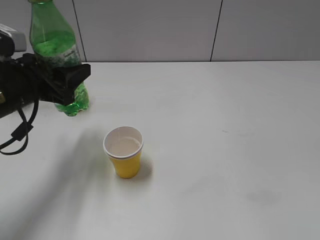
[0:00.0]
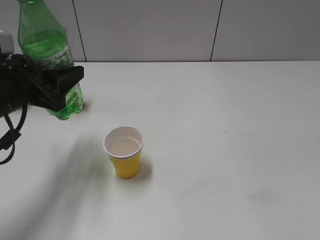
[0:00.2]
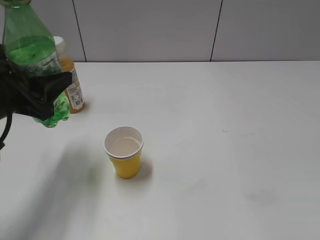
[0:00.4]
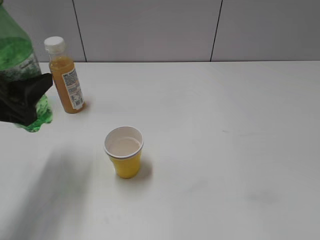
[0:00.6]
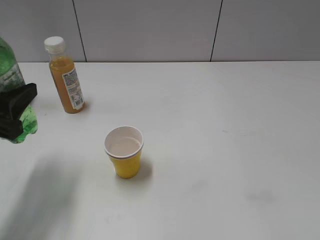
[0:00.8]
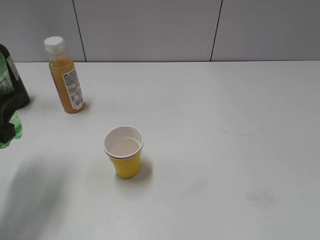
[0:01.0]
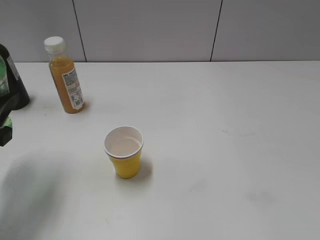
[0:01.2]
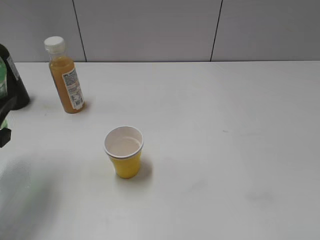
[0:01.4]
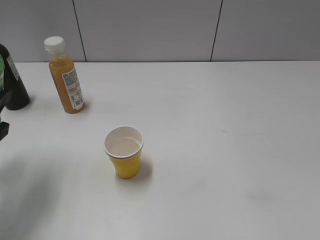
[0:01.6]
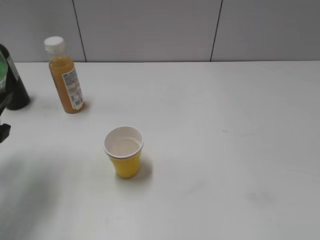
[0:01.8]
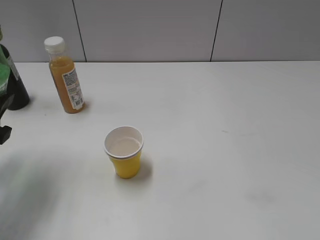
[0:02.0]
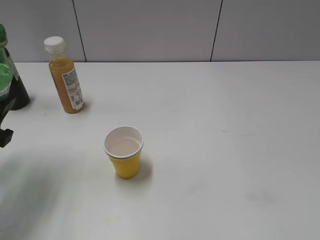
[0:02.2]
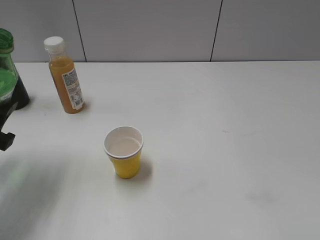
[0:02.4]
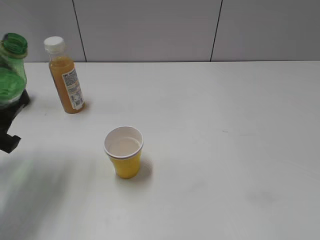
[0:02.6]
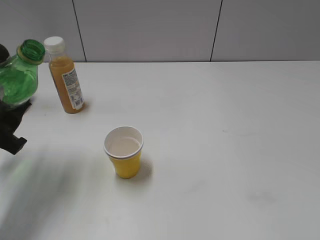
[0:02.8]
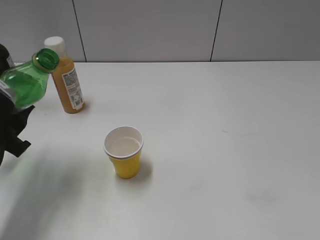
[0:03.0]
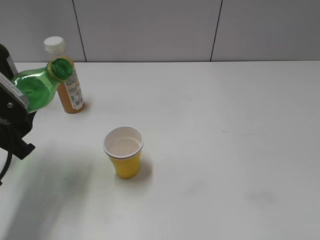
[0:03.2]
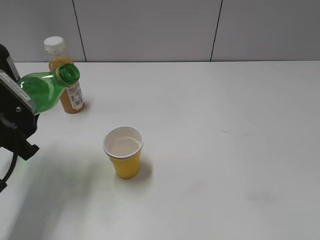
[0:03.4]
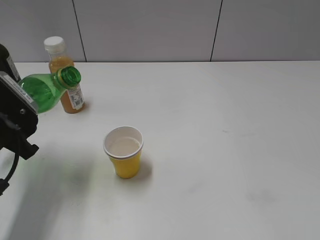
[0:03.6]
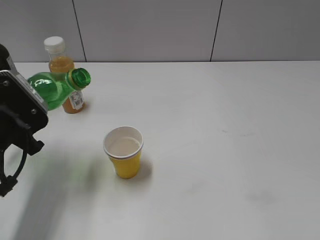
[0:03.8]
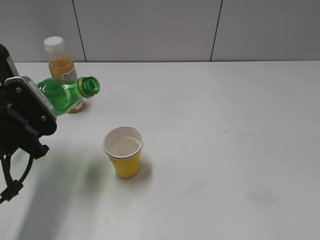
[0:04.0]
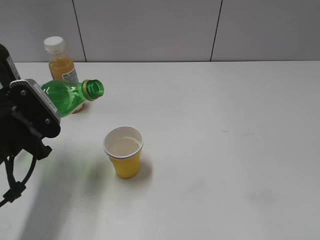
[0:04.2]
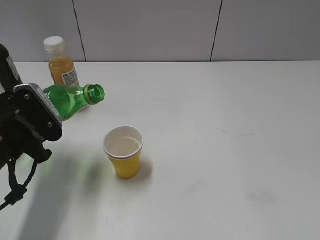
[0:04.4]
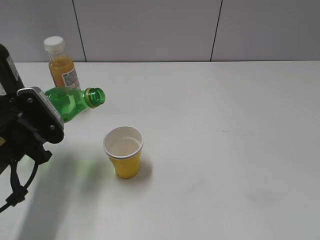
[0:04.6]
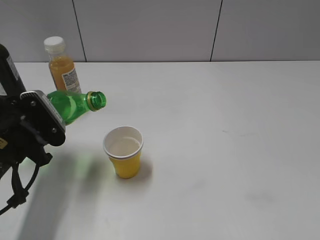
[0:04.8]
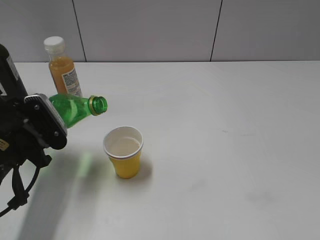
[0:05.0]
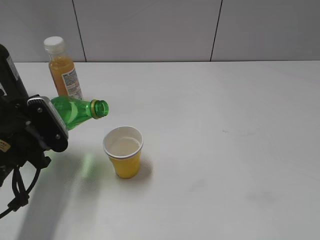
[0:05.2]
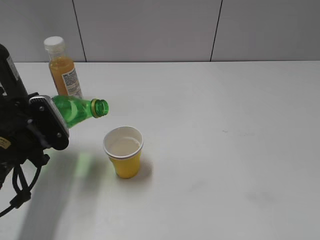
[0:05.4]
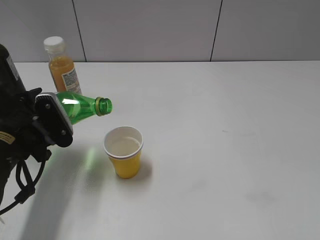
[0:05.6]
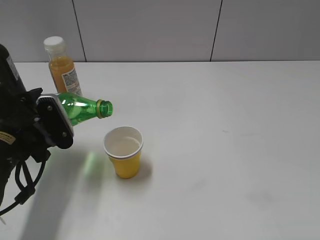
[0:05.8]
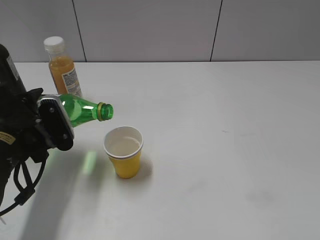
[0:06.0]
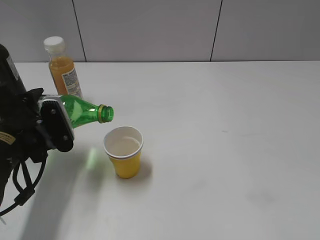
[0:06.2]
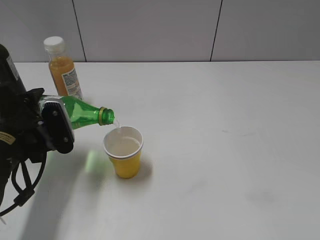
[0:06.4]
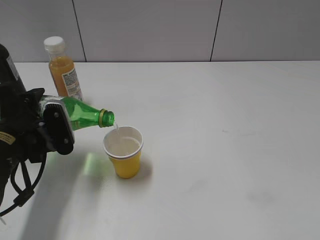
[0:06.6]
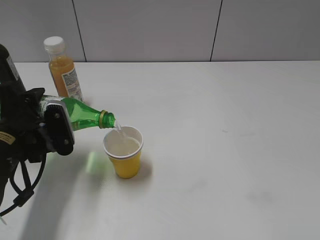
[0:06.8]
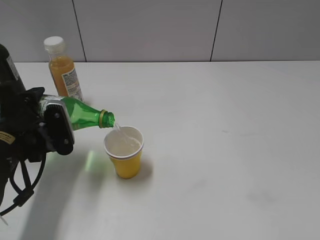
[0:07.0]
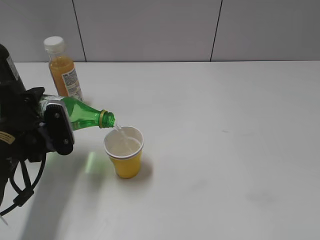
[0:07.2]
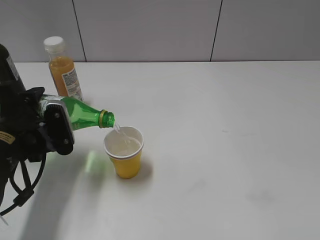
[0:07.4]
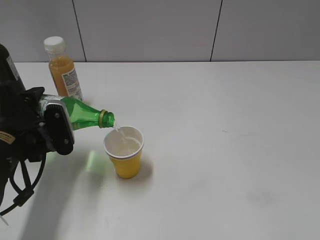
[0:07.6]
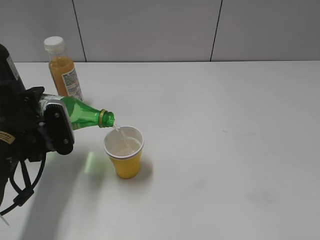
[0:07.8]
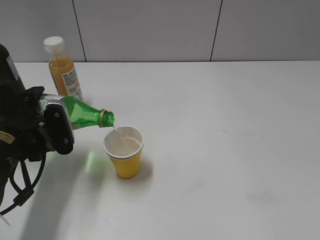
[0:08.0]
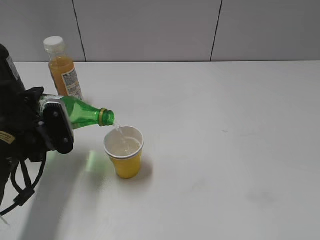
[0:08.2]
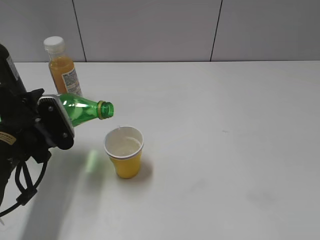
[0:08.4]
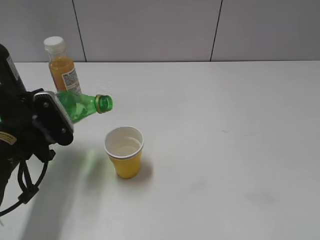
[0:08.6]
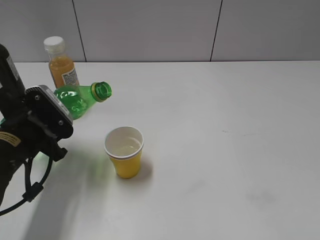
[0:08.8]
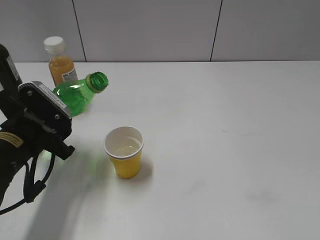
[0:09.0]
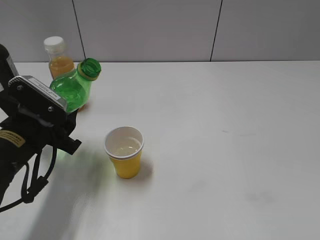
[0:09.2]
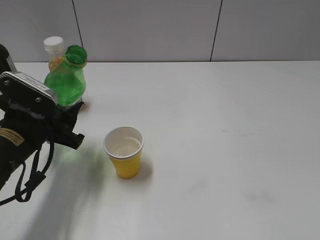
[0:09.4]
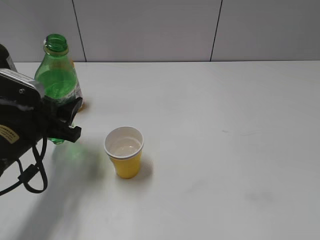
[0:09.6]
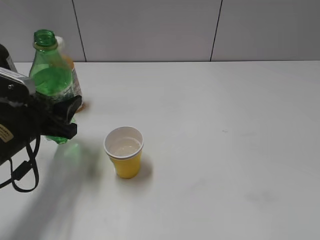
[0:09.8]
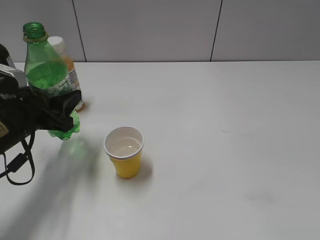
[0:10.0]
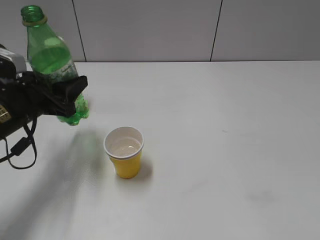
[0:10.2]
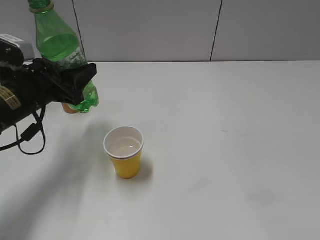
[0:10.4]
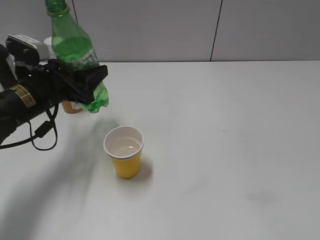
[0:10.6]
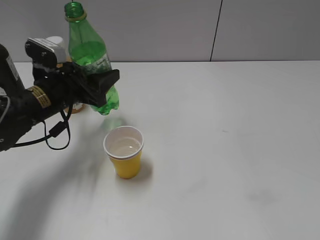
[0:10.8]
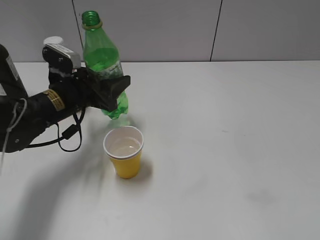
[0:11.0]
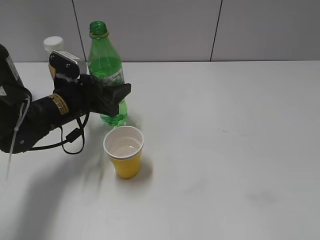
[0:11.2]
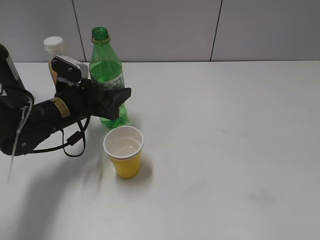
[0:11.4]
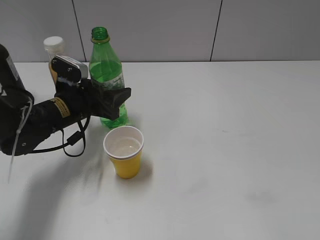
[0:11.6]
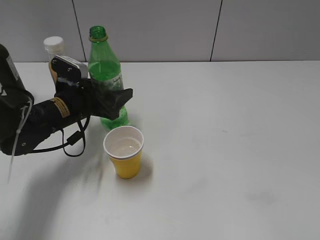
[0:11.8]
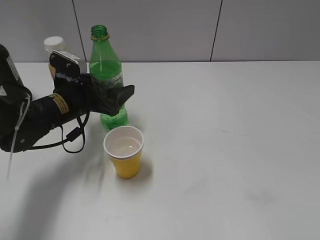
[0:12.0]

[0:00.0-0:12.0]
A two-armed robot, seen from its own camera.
Step, 0:00.0 to 0:08.6: Pour the sprite from bottle to cup with left gripper.
0:00.0 to 0:01.6: The left gripper shifts some 10 cm backward and to the left.
0:04.4 to 0:06.0: The grippers move only a little.
0:06.0 to 0:07.6: The grippers stay close to where they were, moving slightly.
0:09.0 to 0:10.4: The left gripper is displaced forward by approximately 5 cm.
0:10.4 to 0:12.0: The left gripper moves downward, roughly 5 cm, and opens up.

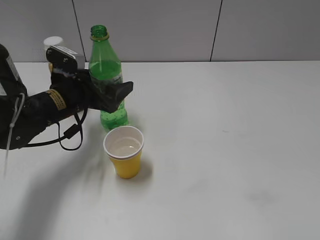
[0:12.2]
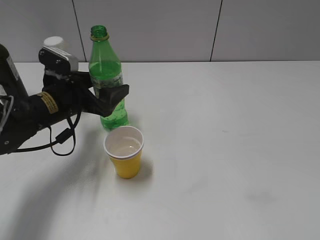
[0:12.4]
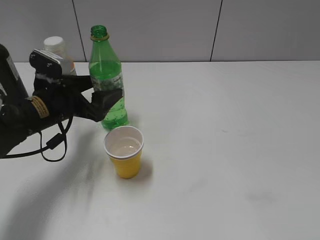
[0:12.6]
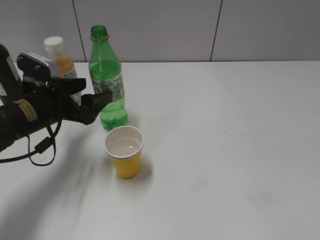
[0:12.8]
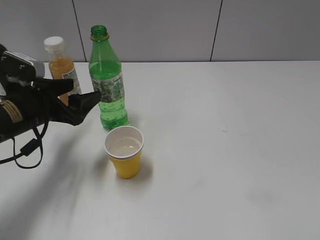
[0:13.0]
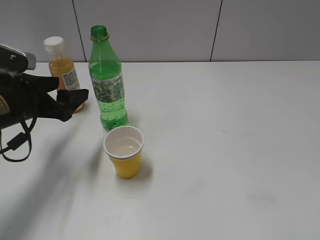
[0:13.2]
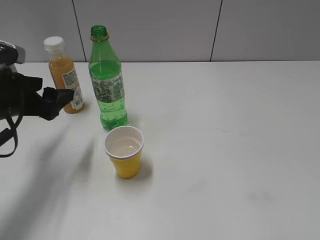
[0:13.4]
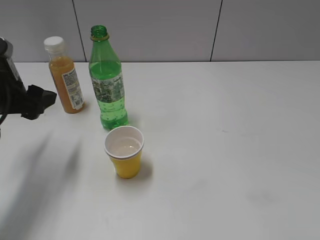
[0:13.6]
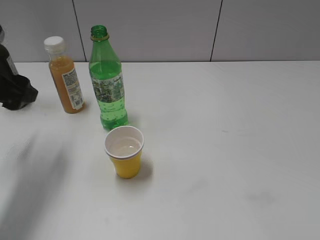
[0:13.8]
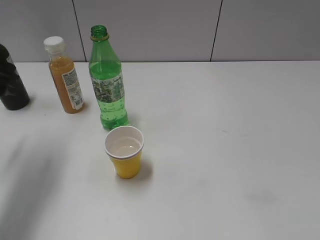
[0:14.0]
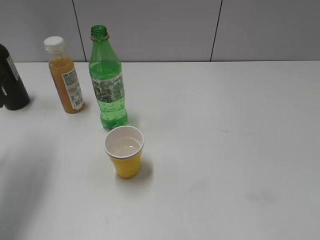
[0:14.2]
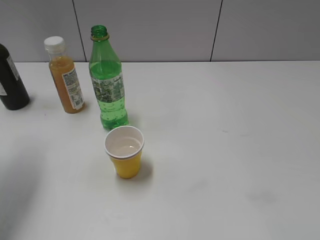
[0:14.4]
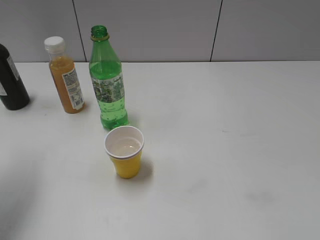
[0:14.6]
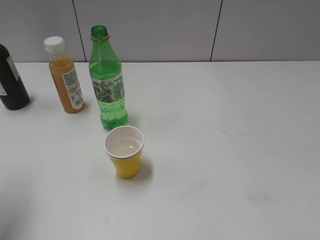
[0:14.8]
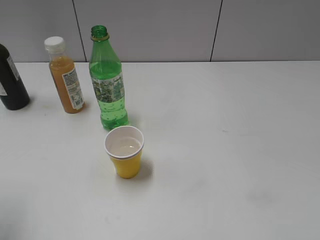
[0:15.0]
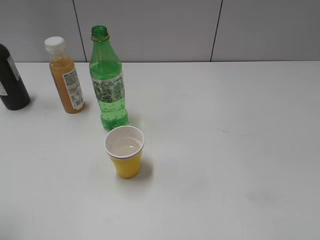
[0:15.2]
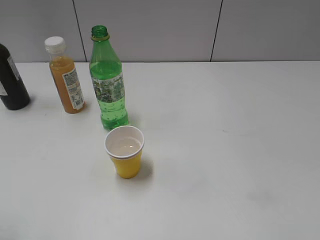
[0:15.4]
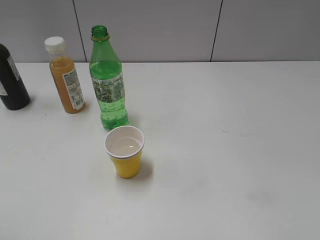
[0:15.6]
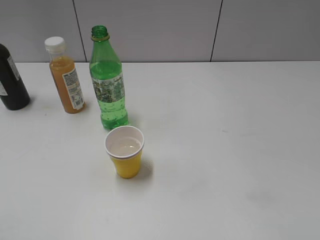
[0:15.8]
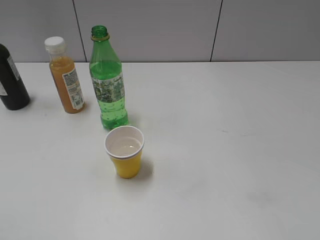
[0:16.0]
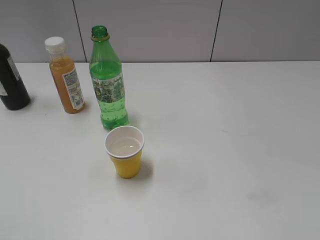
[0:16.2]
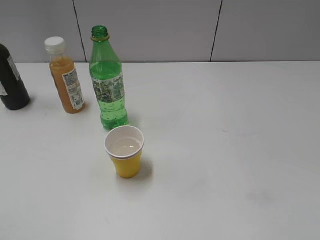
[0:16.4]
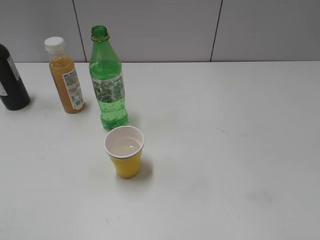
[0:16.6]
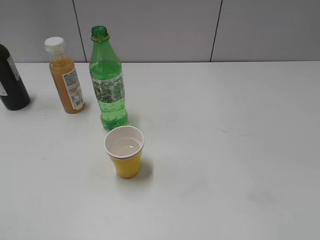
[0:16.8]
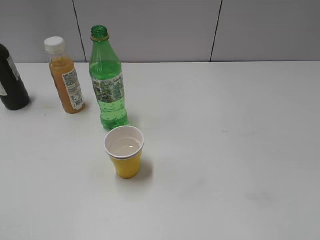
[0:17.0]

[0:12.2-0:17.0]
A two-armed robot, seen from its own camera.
0:12.2 to 0:13.8: The left gripper shifts some 15 cm upward, to the left and backward.
0:13.8 to 0:15.4: The left gripper heads backward, covering approximately 20 cm.

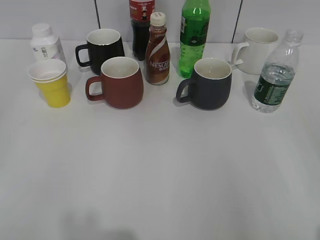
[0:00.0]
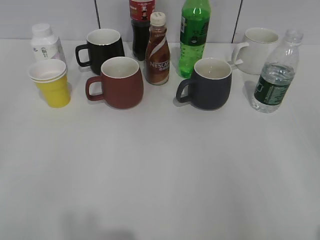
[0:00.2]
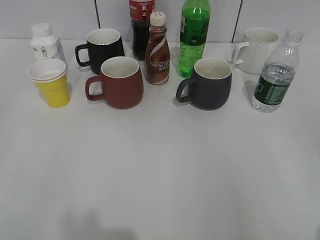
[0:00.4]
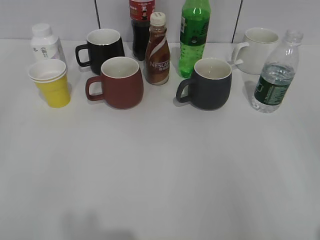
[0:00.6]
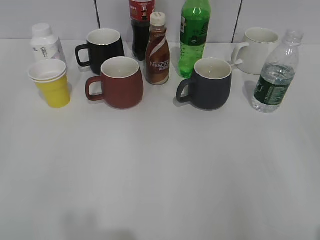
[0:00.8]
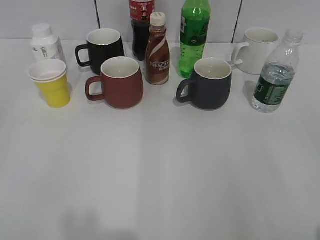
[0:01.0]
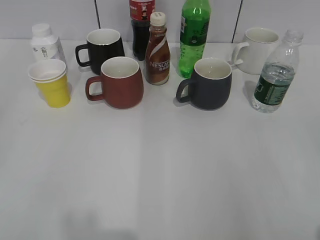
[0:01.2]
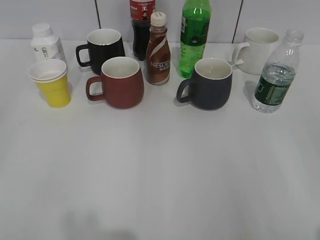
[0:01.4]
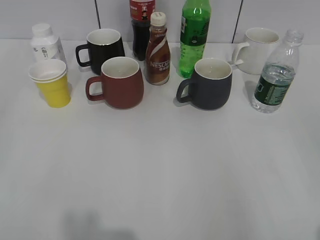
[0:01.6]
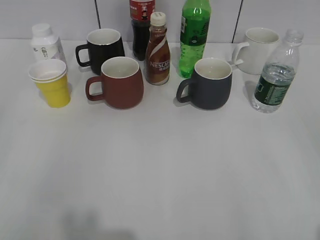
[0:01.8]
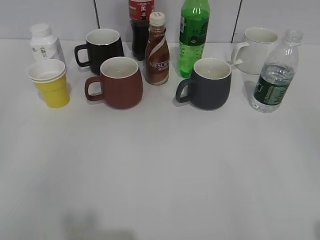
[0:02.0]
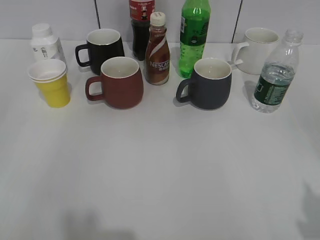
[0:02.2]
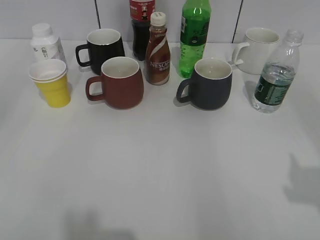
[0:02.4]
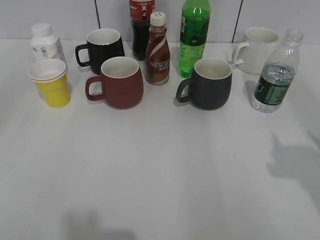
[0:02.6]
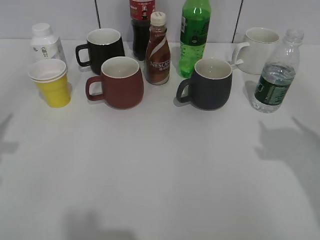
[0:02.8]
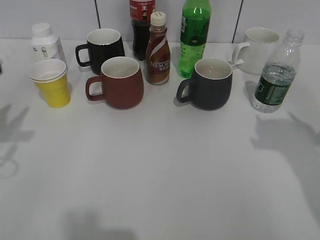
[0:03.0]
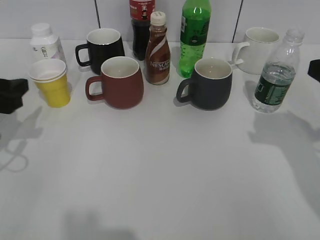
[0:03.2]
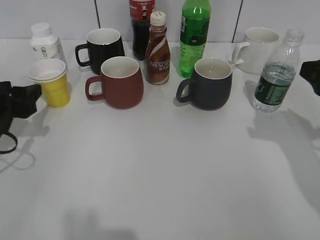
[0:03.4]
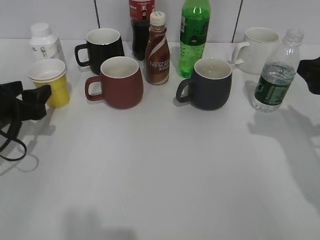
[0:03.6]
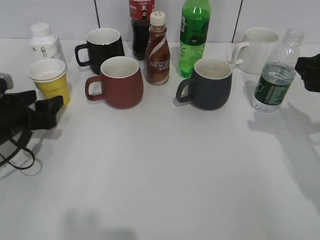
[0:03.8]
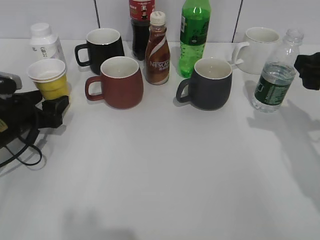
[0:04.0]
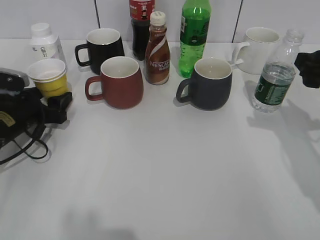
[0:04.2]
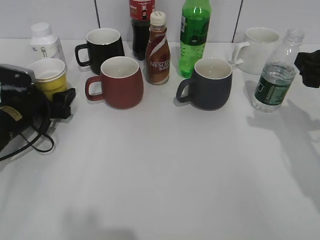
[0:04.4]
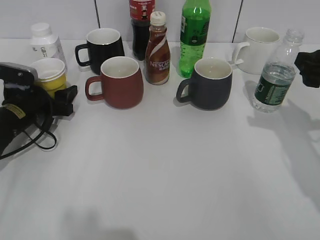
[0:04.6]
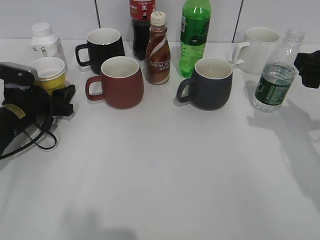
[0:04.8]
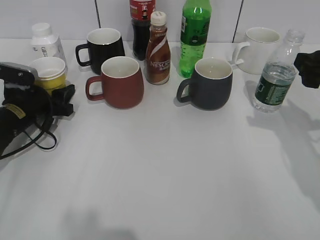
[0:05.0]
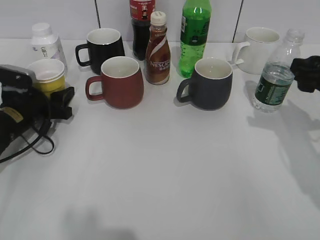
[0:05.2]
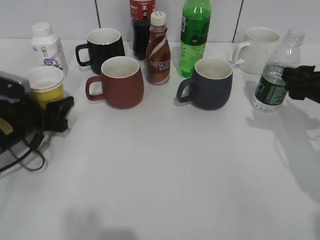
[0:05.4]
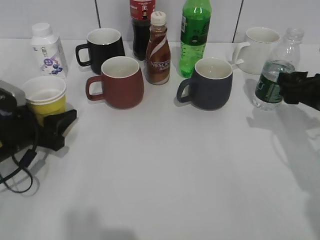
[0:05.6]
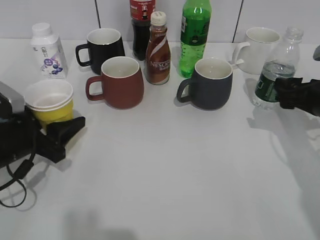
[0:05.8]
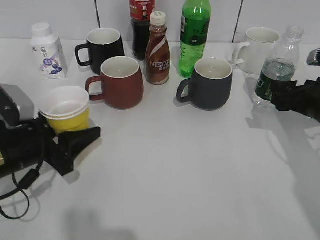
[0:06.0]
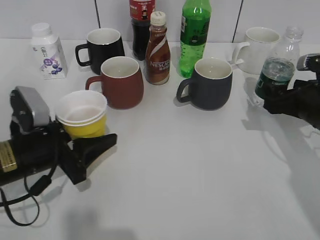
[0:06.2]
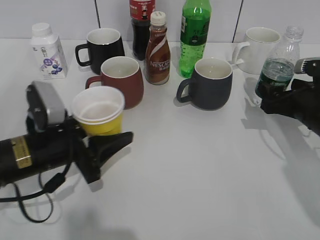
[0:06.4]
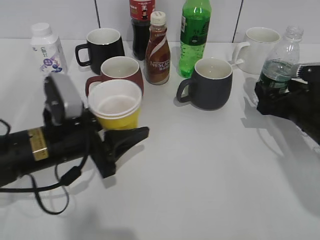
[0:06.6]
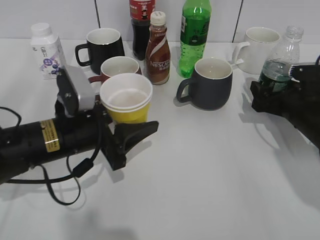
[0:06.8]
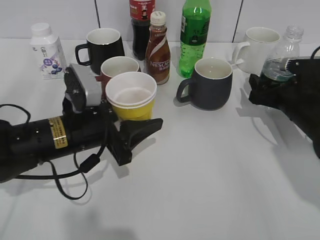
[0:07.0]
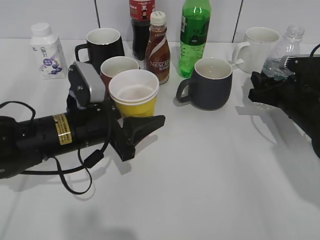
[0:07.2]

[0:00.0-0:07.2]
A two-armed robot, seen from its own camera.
Step, 0:02.0 to 0:05.0: Grasp the yellow paper cup with left gripper.
Step, 0:05.2 to 0:07.2: Grasp the bottle with water with right gripper.
0:01.4 to 0:02.8: Both grippers move forward, approximately 15 cm.
0:02.8 to 0:04.4: The left gripper shifts approximately 25 cm downward and forward, and opens. Meanwhile the right gripper is displaced forward and downward by some 15 cm.
0:04.4 to 0:05.8: The right gripper heads downward, covering roughly 5 cm. The left gripper shifts roughly 10 cm backward, and closes its fingers.
0:05.8 to 0:07.2: The left gripper travels to the right by about 10 cm. Meanwhile the right gripper heads downward and forward, covering some 10 cm, and closes up.
